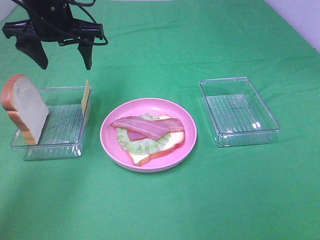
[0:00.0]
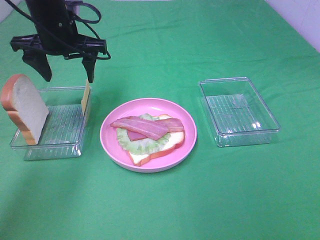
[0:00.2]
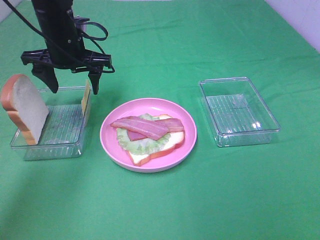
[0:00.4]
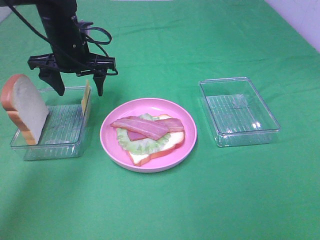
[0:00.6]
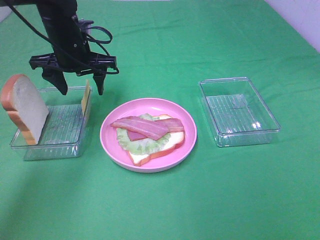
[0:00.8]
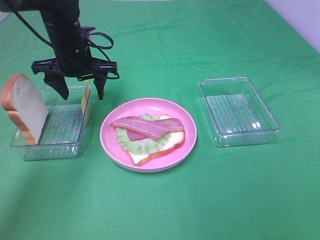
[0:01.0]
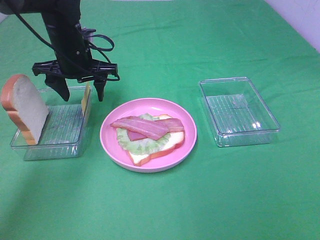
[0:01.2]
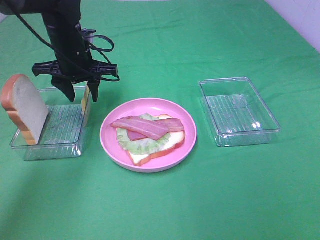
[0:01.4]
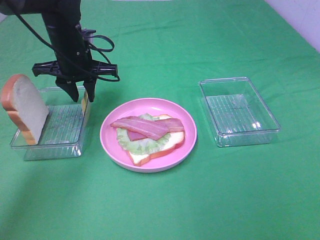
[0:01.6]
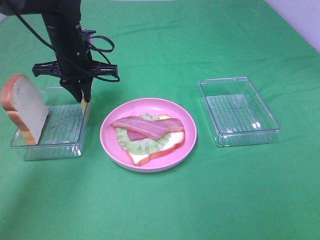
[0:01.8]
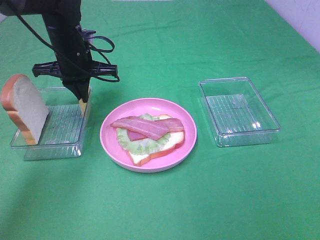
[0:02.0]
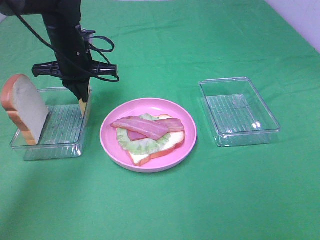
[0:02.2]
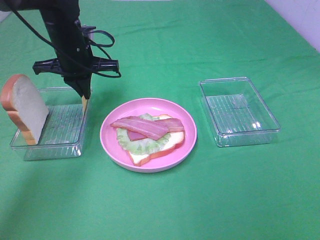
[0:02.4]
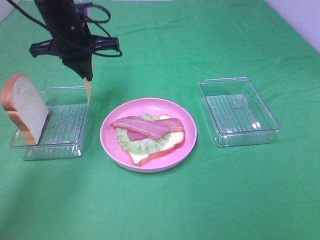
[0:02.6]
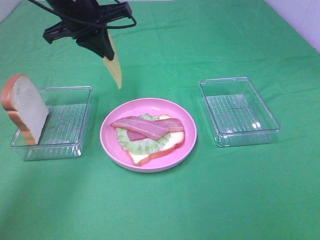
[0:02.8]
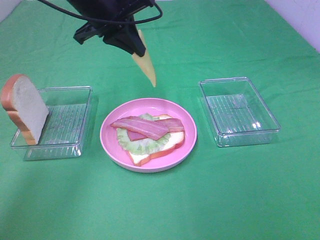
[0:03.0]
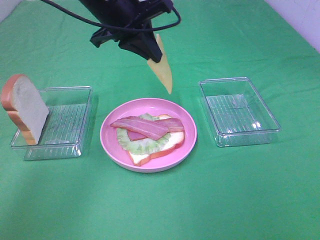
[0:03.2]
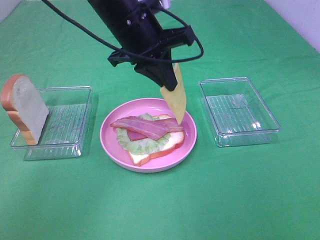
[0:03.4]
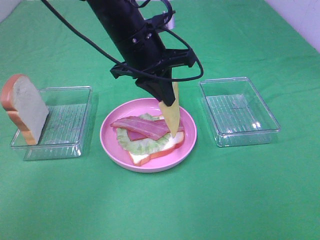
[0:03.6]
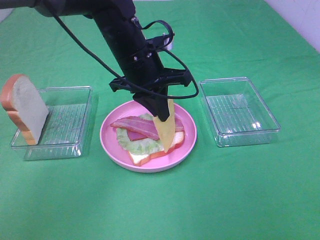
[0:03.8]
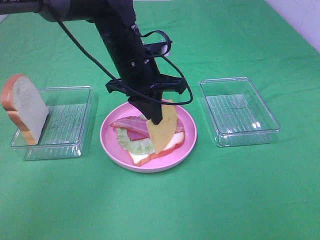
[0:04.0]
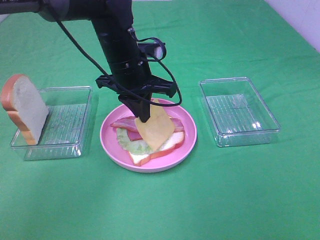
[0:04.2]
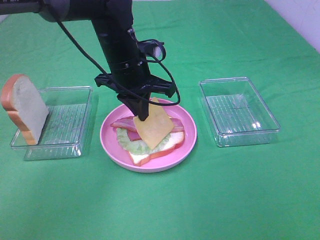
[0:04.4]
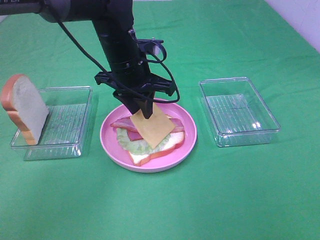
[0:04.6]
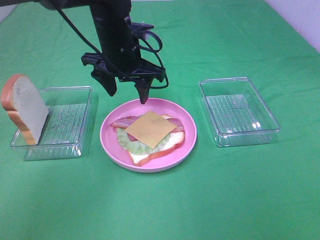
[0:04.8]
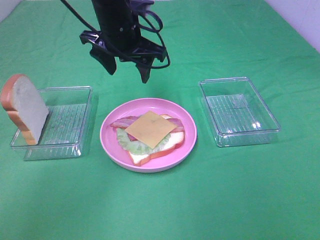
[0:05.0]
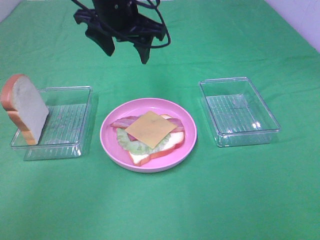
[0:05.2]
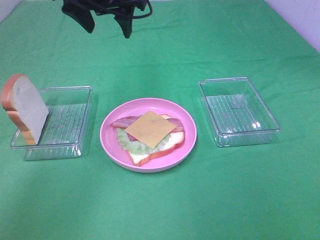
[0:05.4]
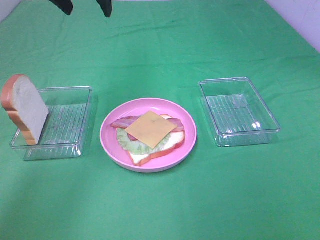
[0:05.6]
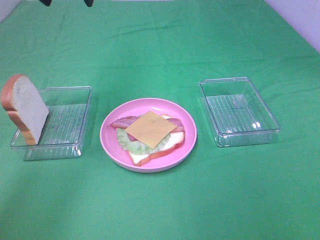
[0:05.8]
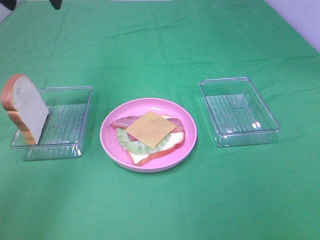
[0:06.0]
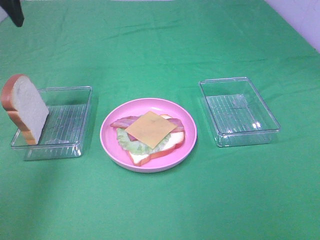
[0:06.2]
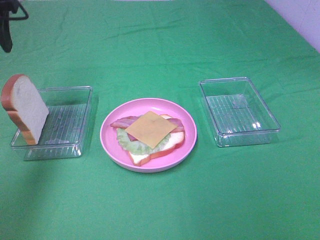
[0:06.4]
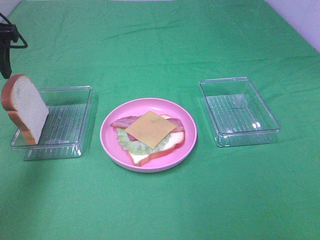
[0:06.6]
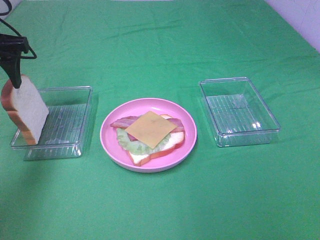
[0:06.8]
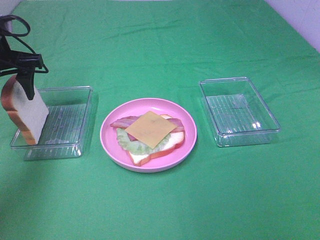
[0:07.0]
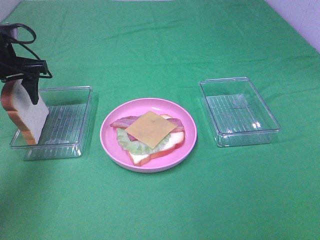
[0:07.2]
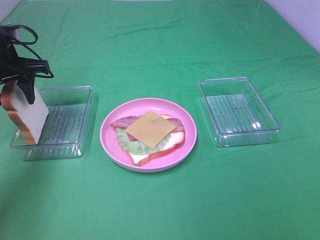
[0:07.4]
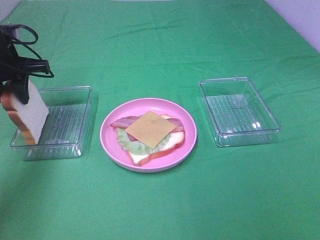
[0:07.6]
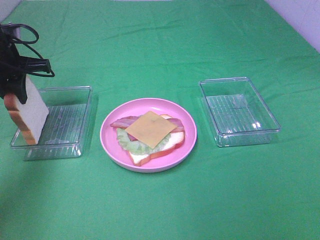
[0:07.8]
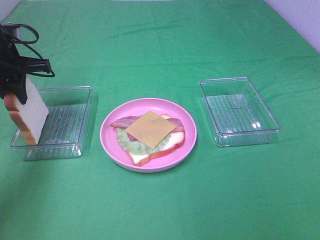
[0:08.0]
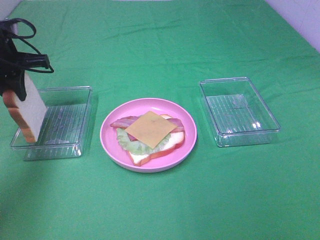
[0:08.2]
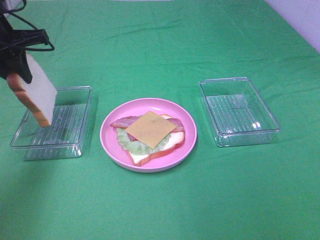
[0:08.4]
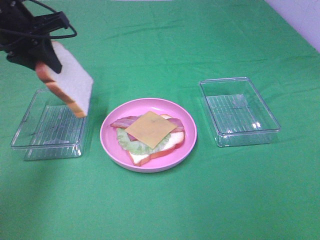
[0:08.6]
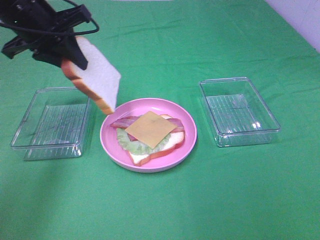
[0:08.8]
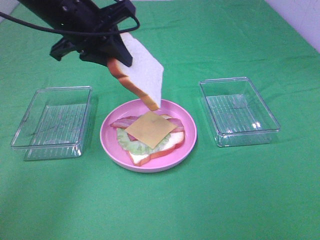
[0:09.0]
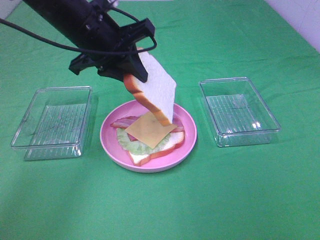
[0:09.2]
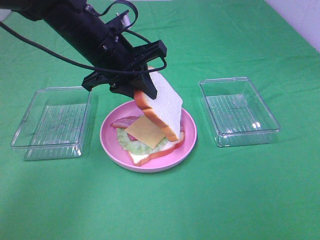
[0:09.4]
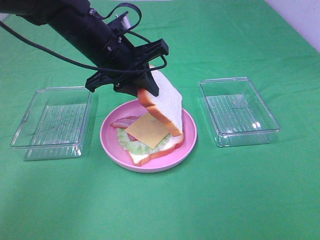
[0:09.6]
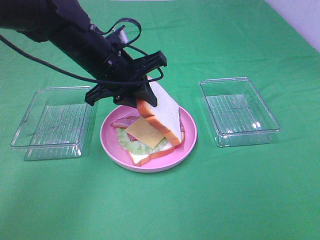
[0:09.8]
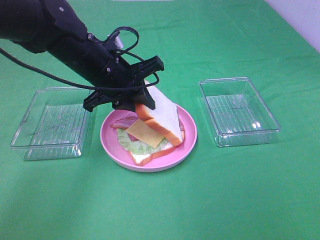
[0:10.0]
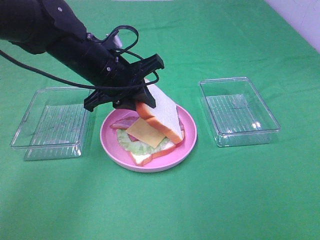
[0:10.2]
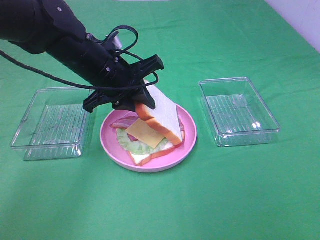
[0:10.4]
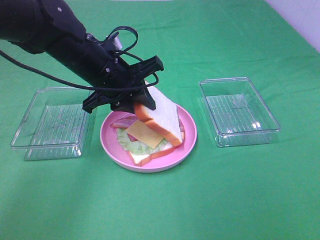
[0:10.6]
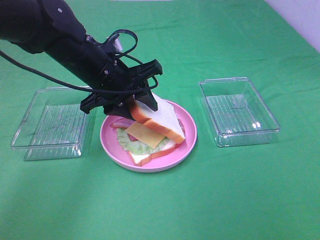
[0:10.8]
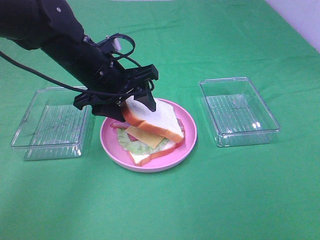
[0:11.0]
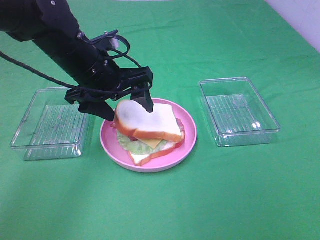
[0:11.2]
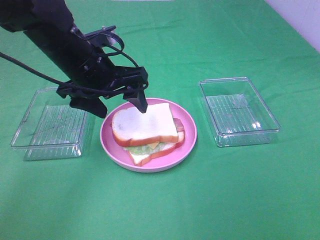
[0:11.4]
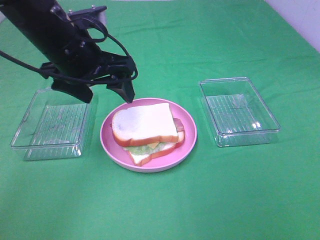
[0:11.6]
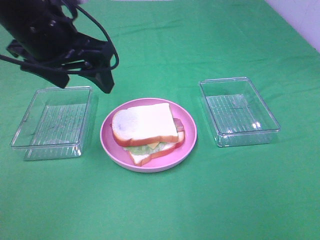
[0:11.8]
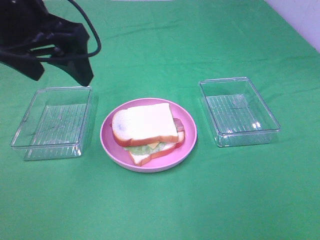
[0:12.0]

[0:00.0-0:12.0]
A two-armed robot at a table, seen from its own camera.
Task of the whole recording: Make sandwiches.
Step, 0:00.0 to 0:02.0: Left hand:grab the cheese slice.
Step, 0:02.2 to 0:04.6: Left hand:place the cheese slice on top of the bacon.
Step, 0:04.8 to 0:07.6: Left hand:grab the bread slice.
Step, 0:07.8 to 0:11.4: Left hand:place the bread slice on the cheese slice.
0:00.0 to 0:01.6: The left gripper travels downward by some 10 cm, and closes its fingers.
0:01.6 to 0:03.0: The left gripper moves upward and to the right, about 10 cm, and closes up.
0:03.0 to 0:04.4: The left gripper goes roughly 10 cm downward.
0:04.4 to 0:06.0: The left gripper travels upward and to the left by some 25 cm, and opens its fingers.
0:06.0 to 0:07.6: The left gripper shifts roughly 20 cm downward and to the left, and closes.
0:07.6 to 0:09.0: The left gripper is displaced to the right and upward by roughly 15 cm.
0:09.0 to 0:10.4: The left gripper goes roughly 10 cm downward.
0:10.4 to 0:12.0: The left gripper moves upward, backward and to the left, about 20 cm, and opens.

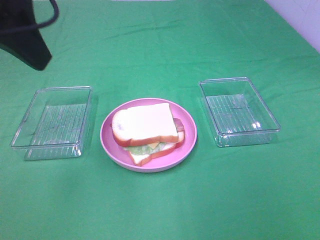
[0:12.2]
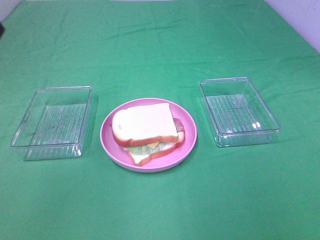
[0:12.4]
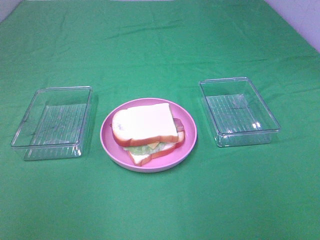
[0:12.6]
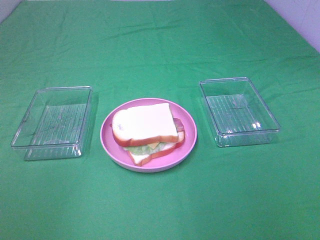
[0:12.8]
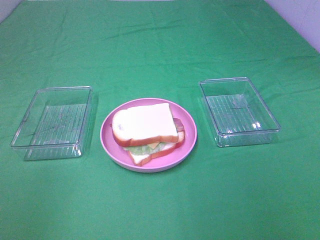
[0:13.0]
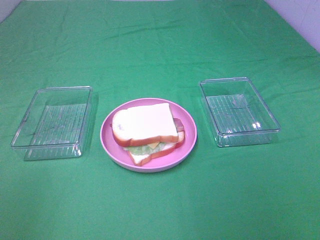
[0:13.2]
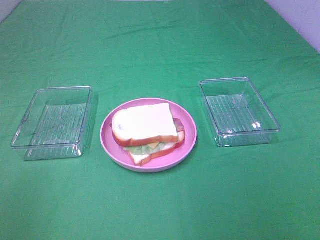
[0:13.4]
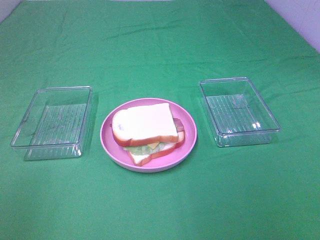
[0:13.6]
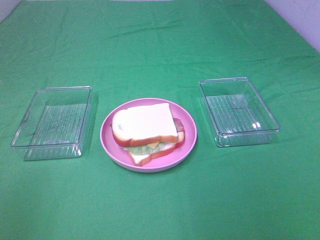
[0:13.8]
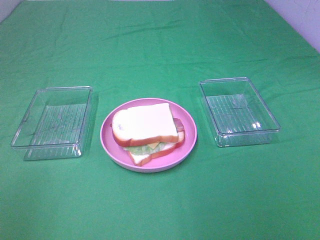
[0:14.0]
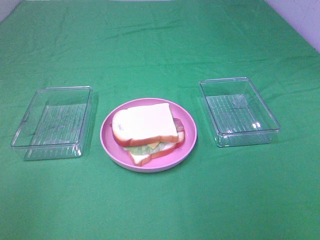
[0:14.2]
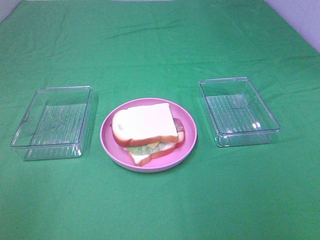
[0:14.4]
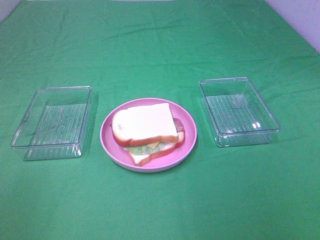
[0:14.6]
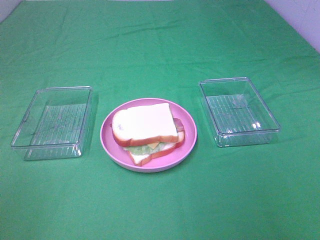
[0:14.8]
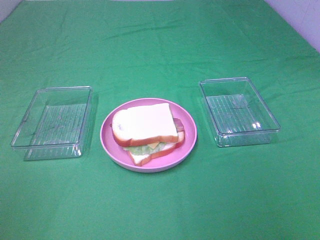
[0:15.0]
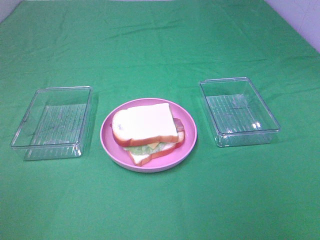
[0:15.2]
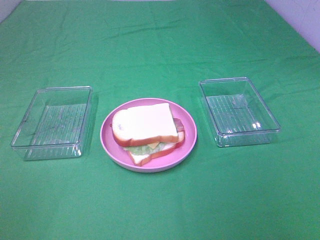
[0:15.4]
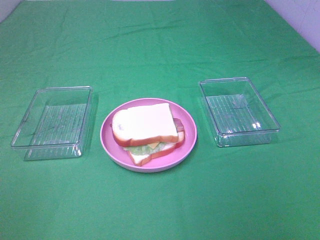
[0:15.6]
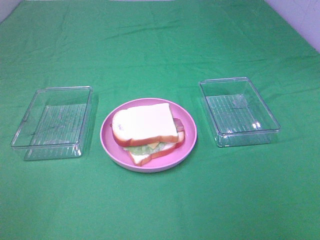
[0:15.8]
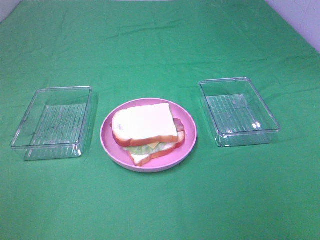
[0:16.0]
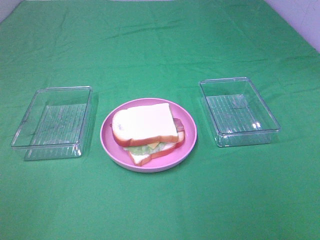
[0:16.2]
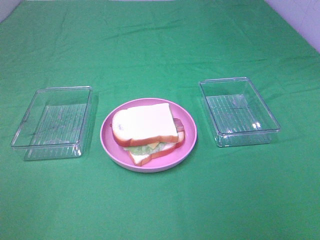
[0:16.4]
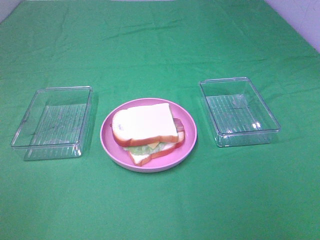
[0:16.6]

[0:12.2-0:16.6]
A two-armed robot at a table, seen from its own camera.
Task of the whole recording: Make sandwiches.
0:12.2 to 0:13.6: The left gripper is displaced backward, to the left and downward by some 25 cm.
0:15.2 to 0:16.6: Neither gripper changes place.
